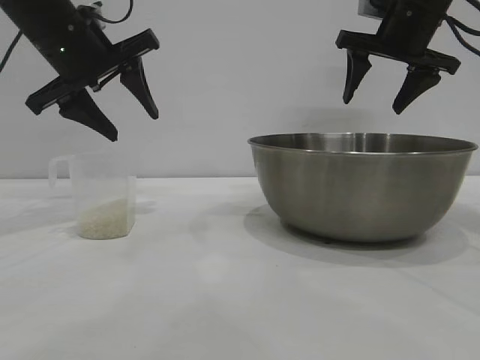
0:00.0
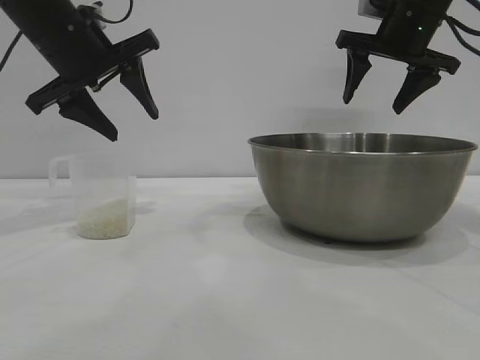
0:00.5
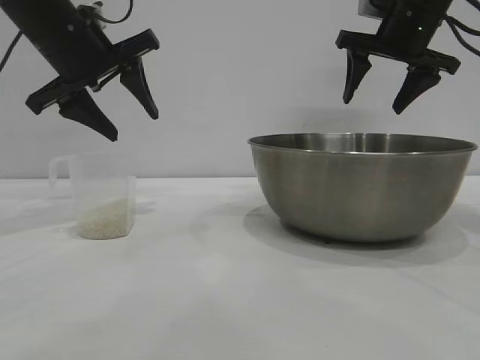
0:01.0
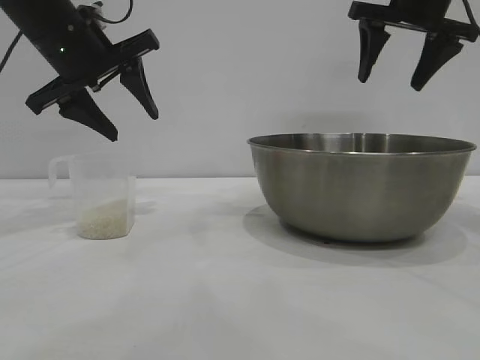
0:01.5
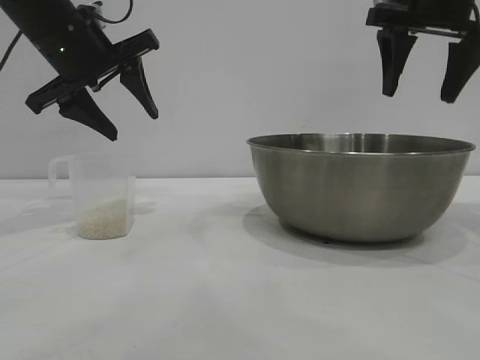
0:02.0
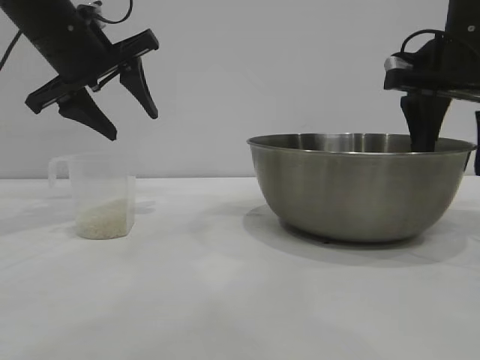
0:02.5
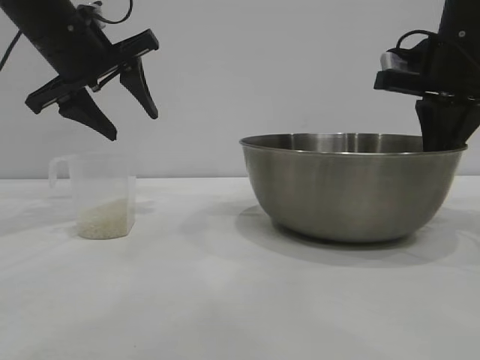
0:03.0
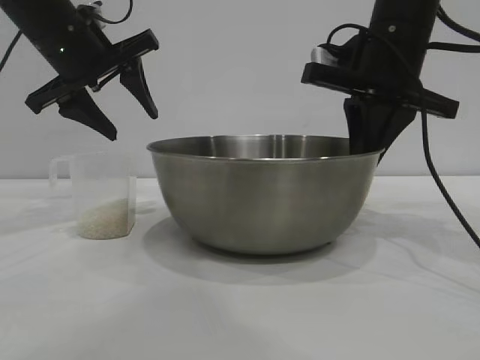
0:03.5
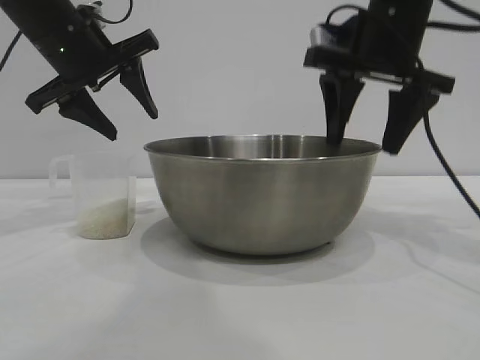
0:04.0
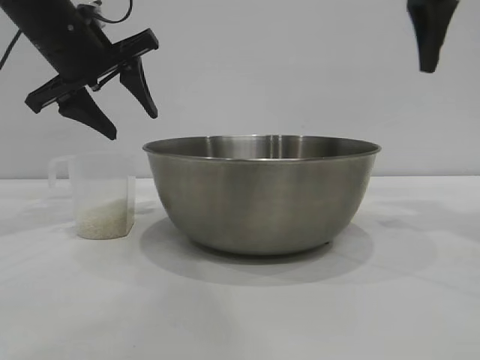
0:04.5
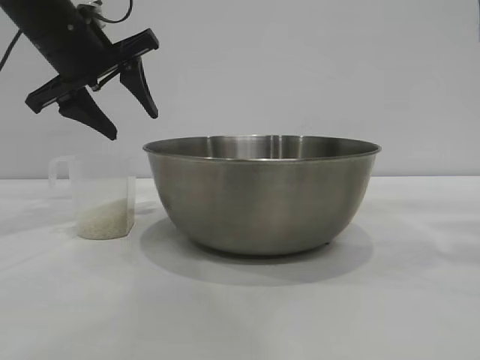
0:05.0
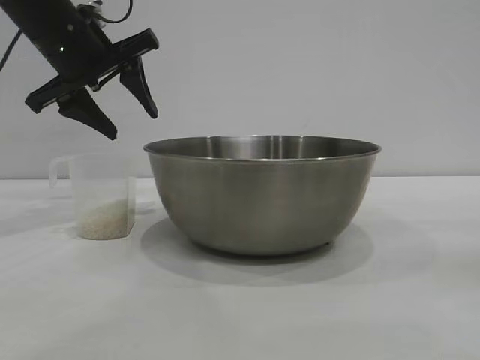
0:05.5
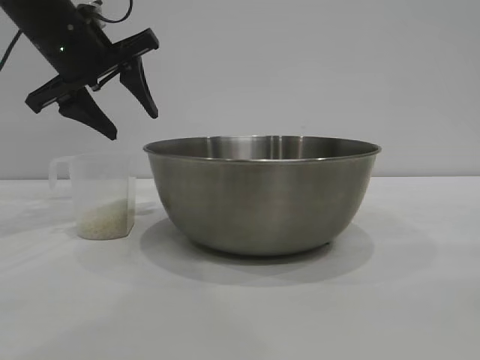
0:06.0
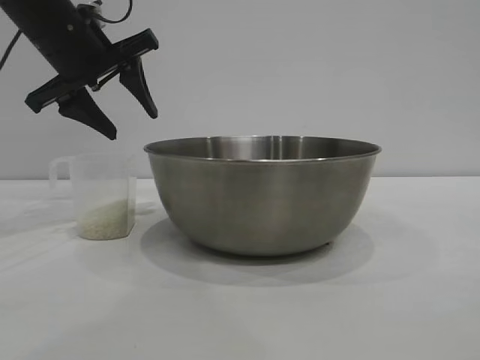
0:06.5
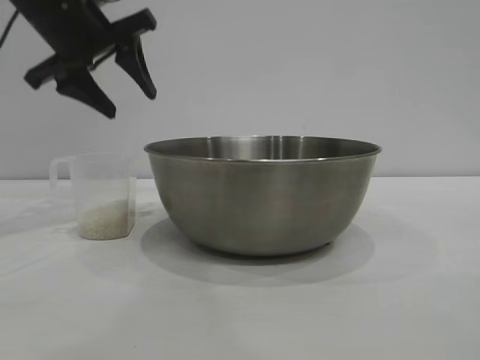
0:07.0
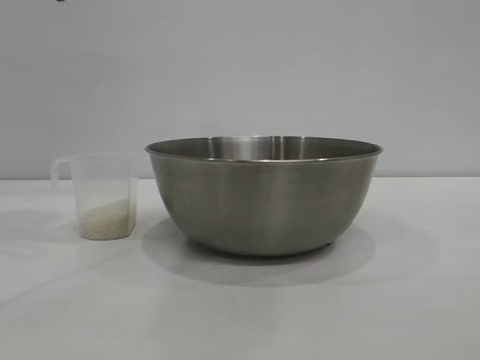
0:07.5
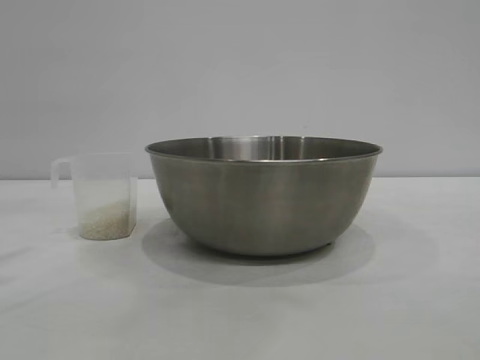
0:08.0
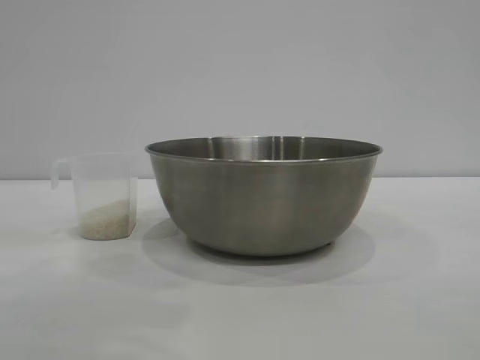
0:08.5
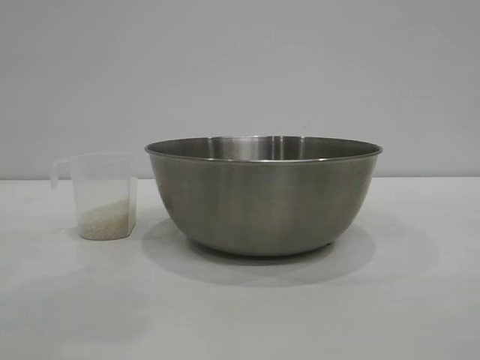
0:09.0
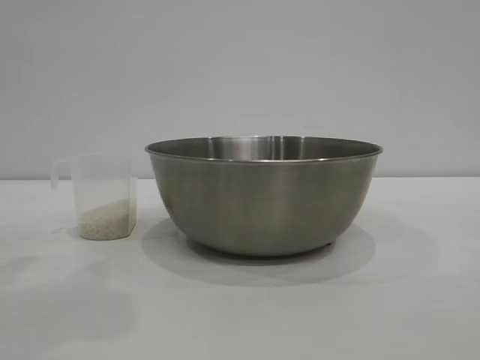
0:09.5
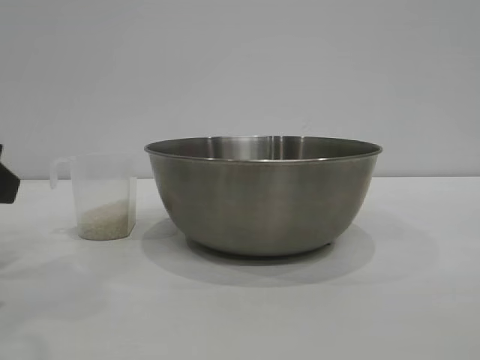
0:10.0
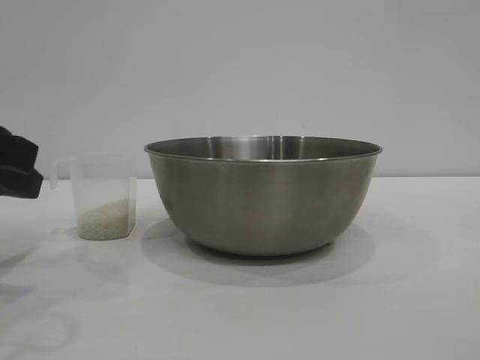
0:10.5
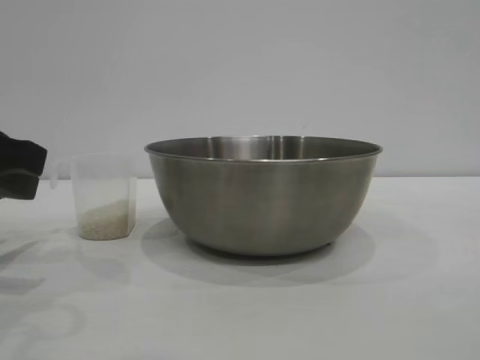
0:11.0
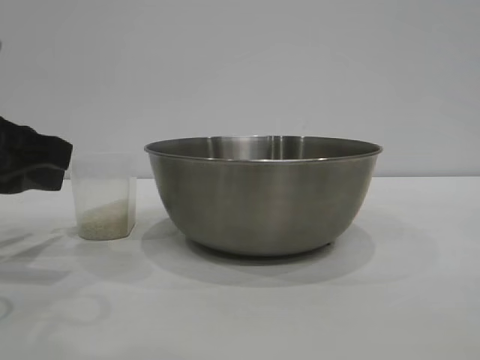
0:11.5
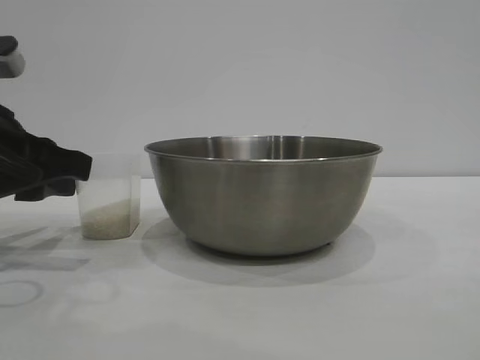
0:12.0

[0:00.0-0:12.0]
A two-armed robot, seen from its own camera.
Task of the whole recording: the right gripper grasp the rice container and place it in the center of the table, the left gripper grasp the rice scoop and pour the rice into the rice container.
Step, 0:00.0 to 0:04.0: Move the bowl to the center of view with the right gripper.

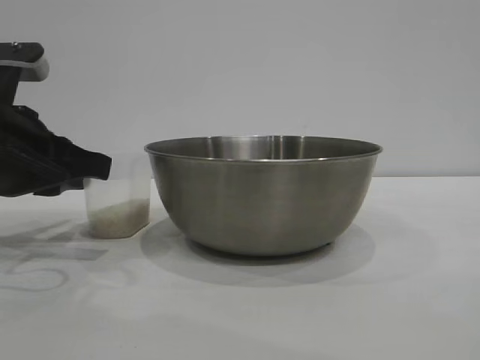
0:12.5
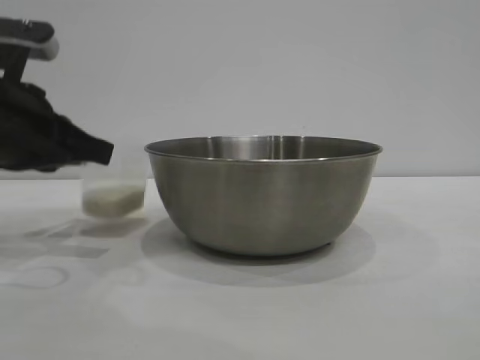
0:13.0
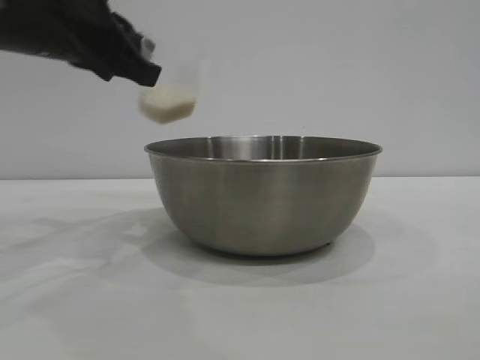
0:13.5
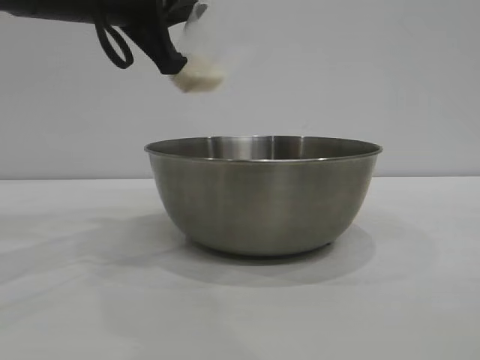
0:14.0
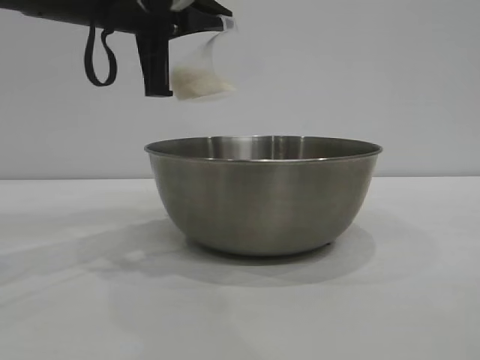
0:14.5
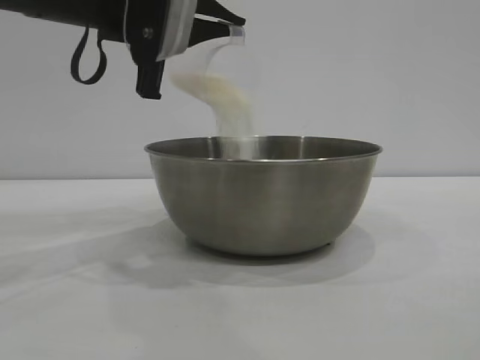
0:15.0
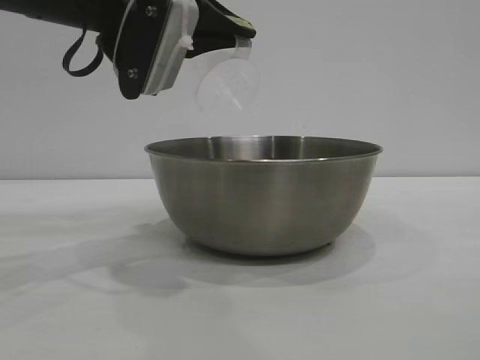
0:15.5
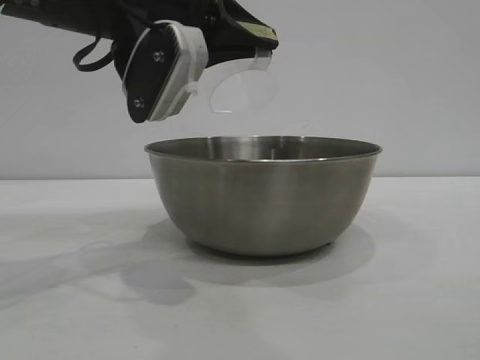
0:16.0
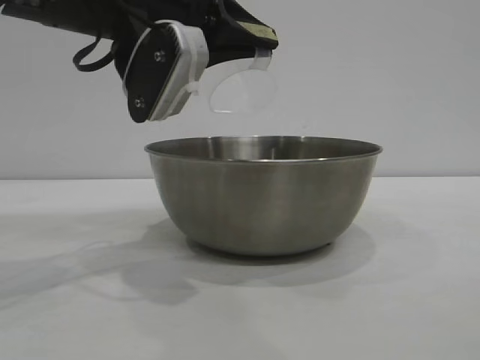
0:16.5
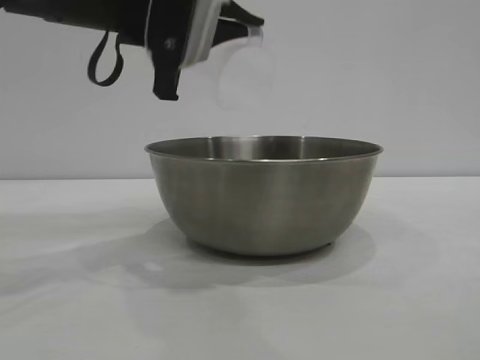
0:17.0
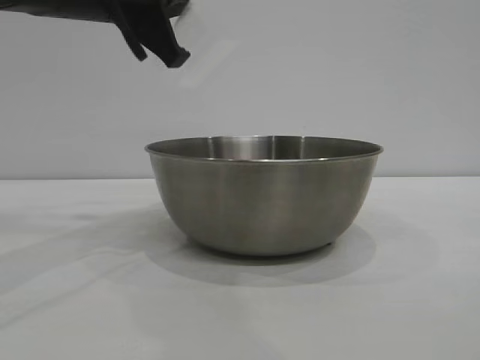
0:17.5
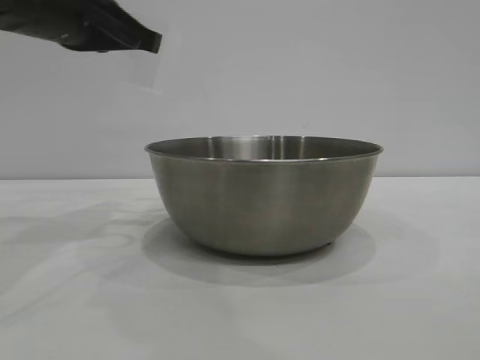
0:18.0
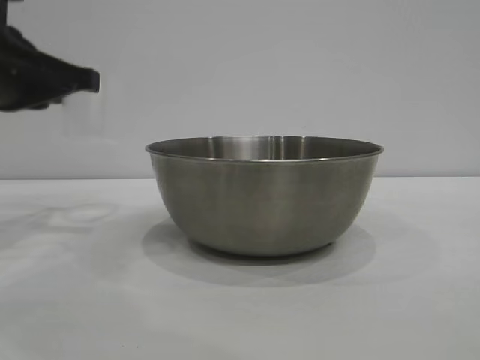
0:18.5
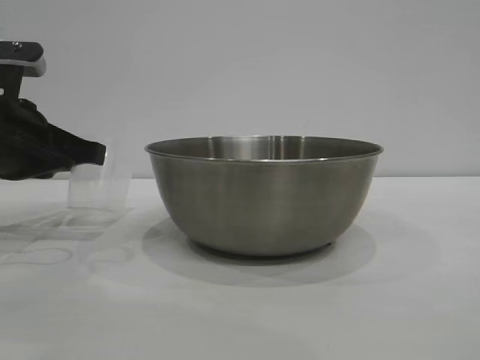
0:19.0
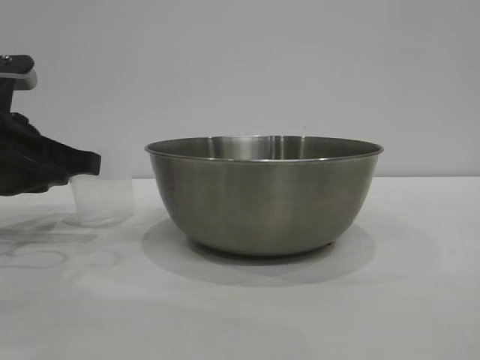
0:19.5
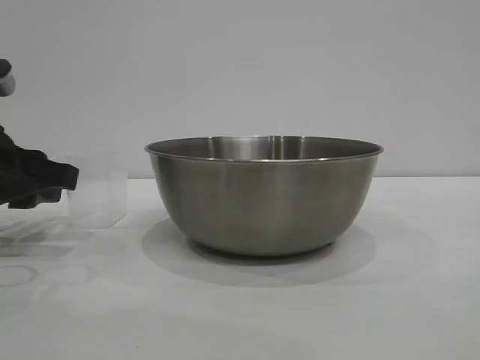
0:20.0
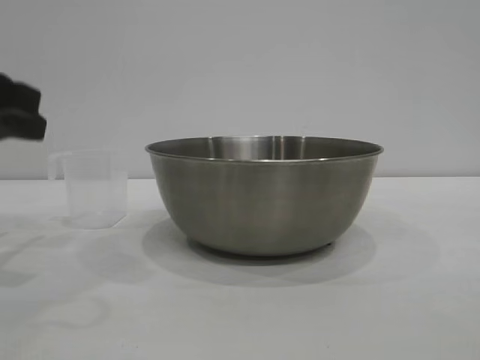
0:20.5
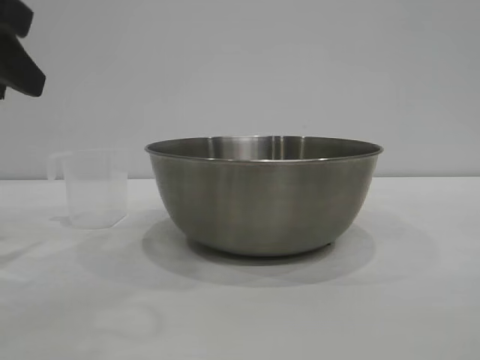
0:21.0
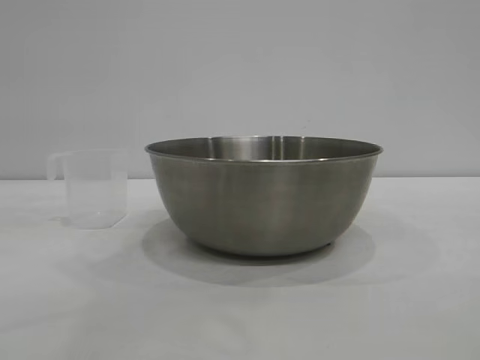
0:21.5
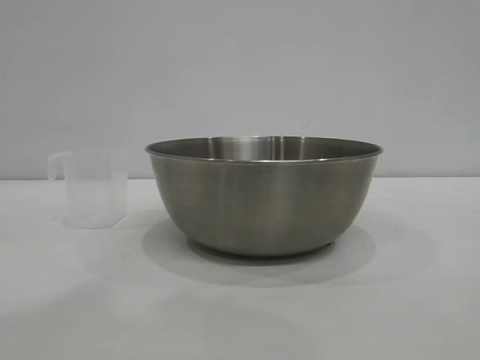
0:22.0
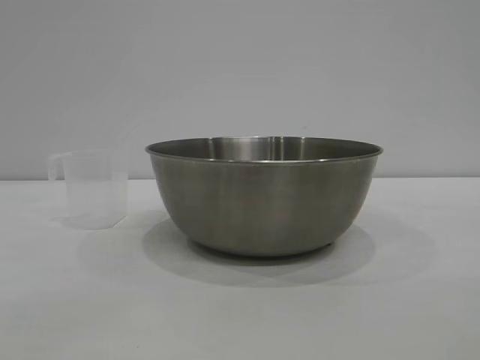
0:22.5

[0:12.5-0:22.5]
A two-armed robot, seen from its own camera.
Task of the whole recording: the right gripper grasp the rice container and place it in the center of the table, the left gripper grasp the rice scoop and pour the rice into the rice container.
Step, 0:13.5 to 0:17.0: Pour the rice from the cup into the bowl with the left gripper.
Step, 0:17.5 to 0:20.0: Place the cup on the table with the left gripper.

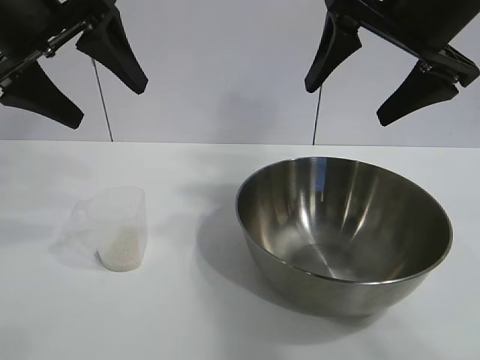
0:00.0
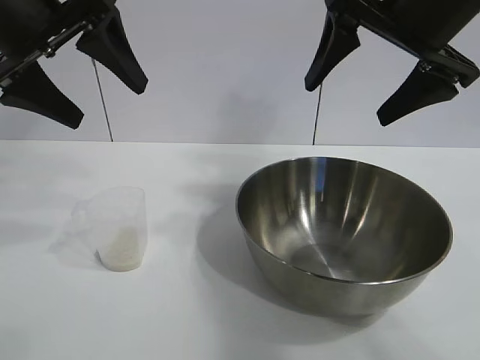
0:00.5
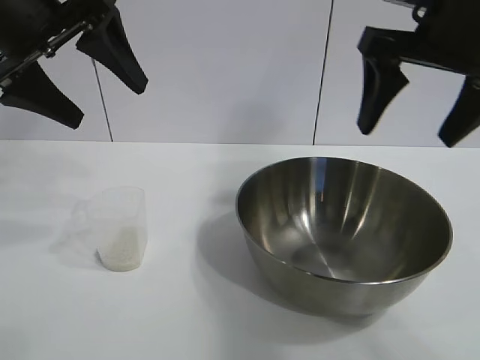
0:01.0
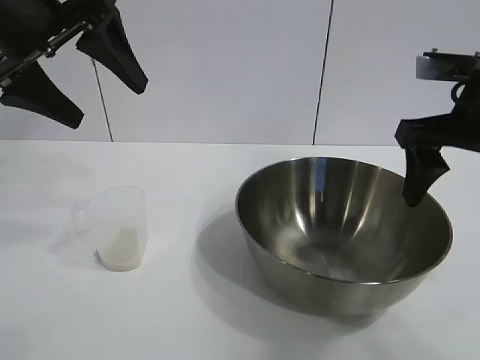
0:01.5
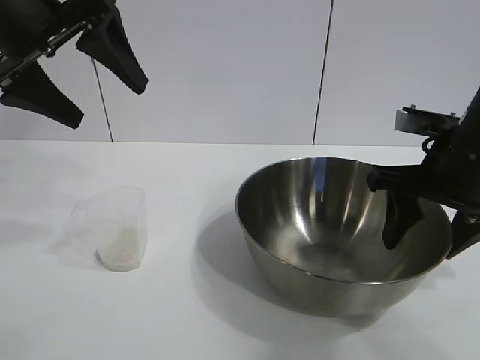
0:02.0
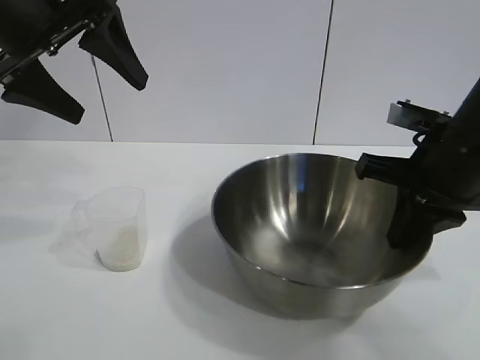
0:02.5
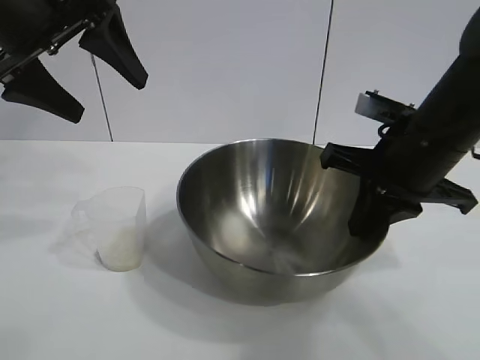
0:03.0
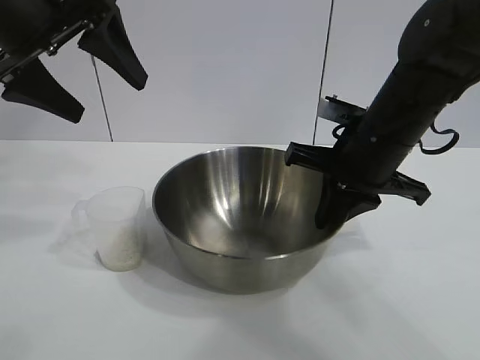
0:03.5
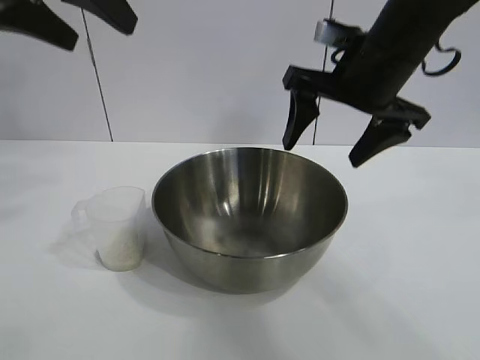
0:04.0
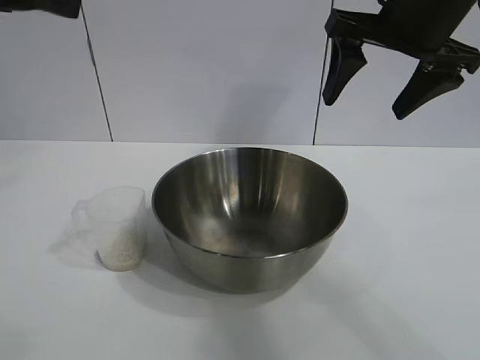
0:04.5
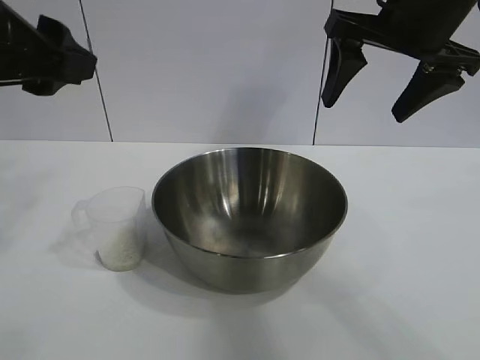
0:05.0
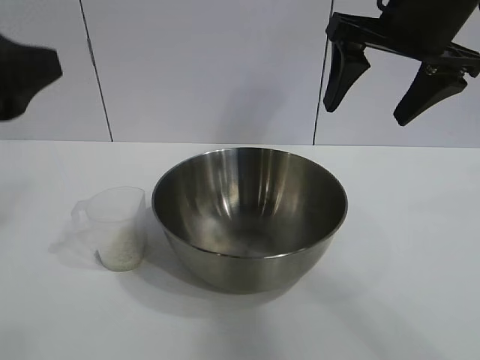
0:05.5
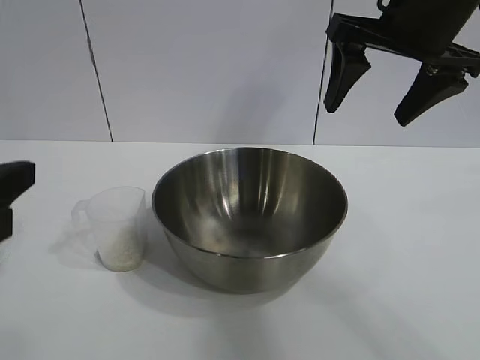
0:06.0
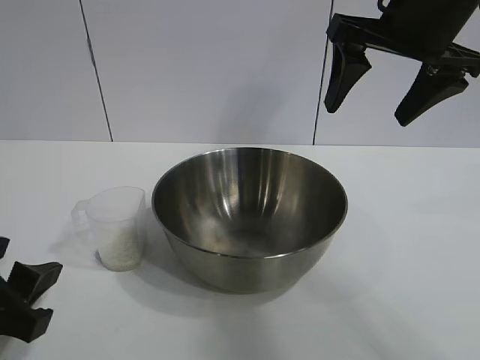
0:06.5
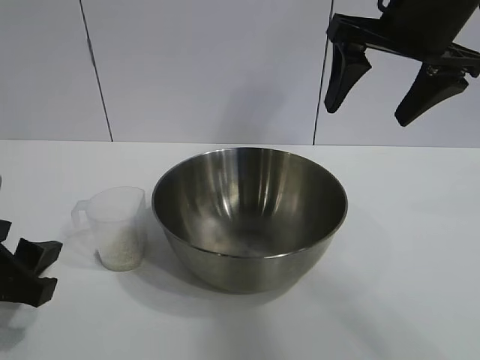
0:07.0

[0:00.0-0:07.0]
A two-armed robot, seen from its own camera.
Task of the whole recording: the right gripper grasp the rice container and place it in the center of the table, the left gripper grasp the rice scoop and pour the rice into the rice container.
Step, 0:01.0 to 0:03.5: Move the bowl in the center of view with right gripper.
